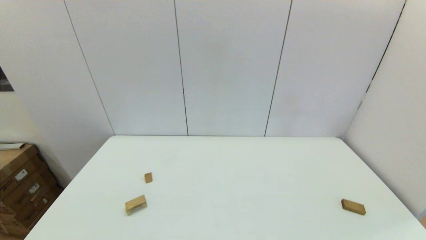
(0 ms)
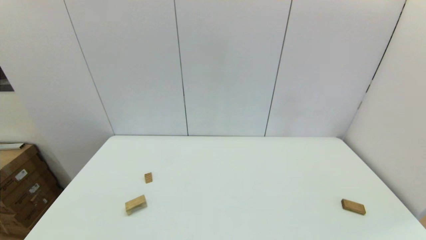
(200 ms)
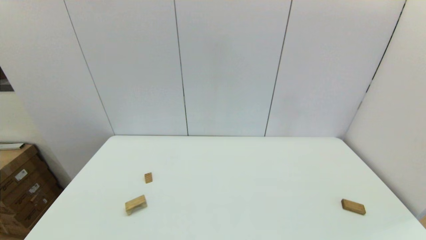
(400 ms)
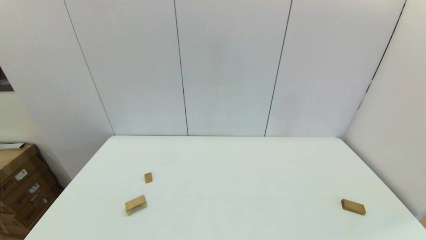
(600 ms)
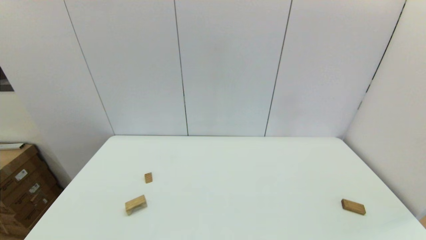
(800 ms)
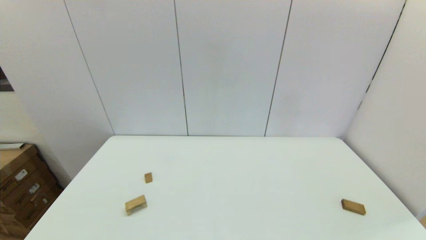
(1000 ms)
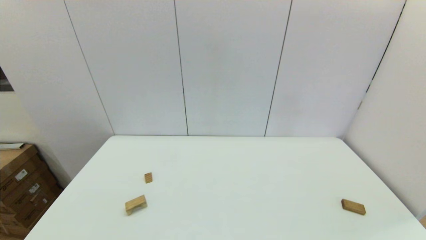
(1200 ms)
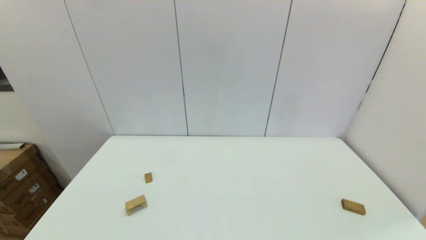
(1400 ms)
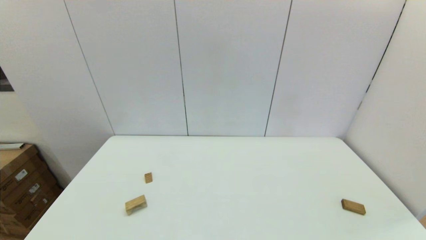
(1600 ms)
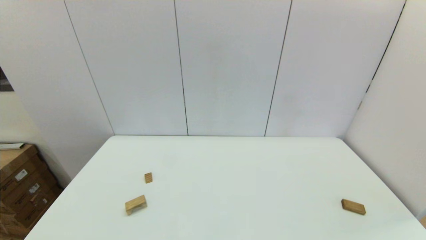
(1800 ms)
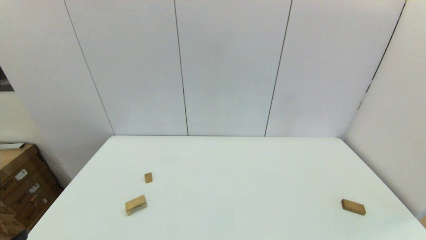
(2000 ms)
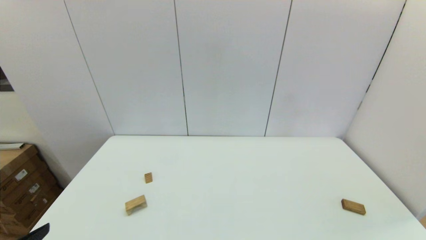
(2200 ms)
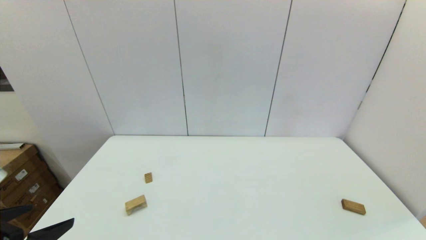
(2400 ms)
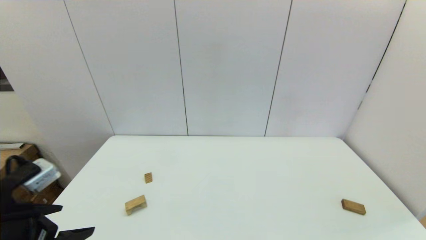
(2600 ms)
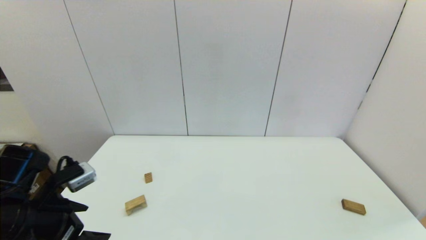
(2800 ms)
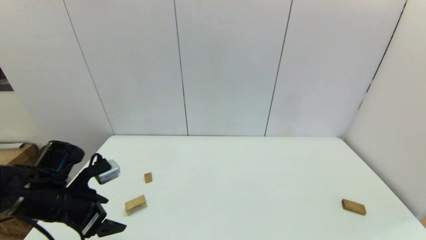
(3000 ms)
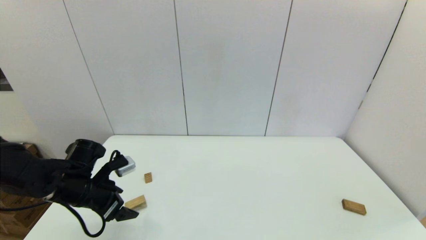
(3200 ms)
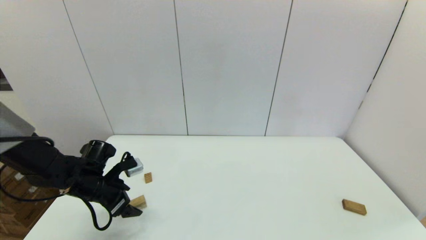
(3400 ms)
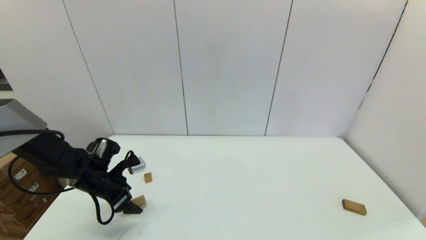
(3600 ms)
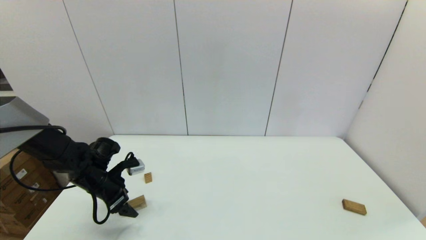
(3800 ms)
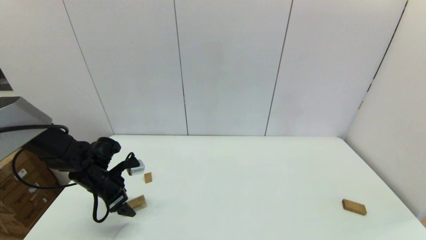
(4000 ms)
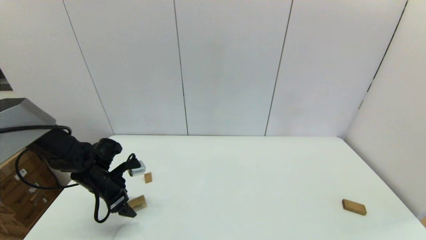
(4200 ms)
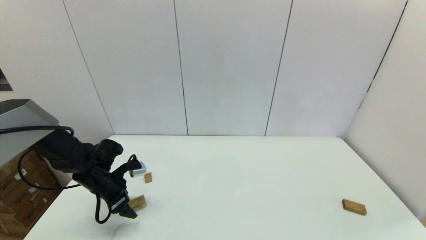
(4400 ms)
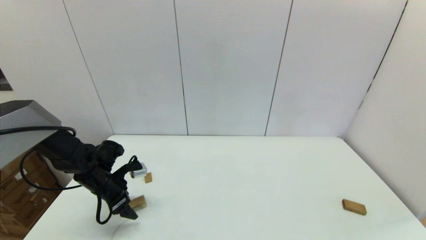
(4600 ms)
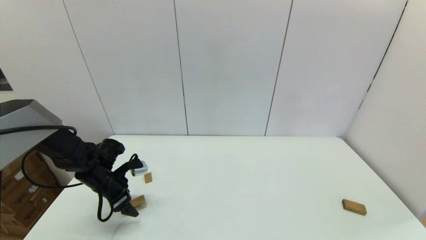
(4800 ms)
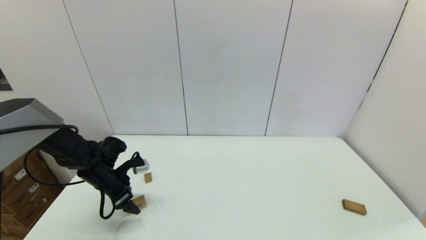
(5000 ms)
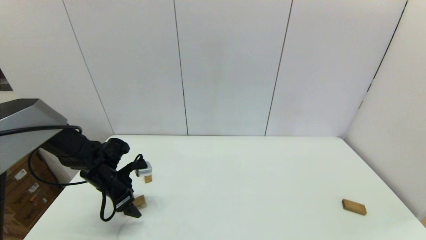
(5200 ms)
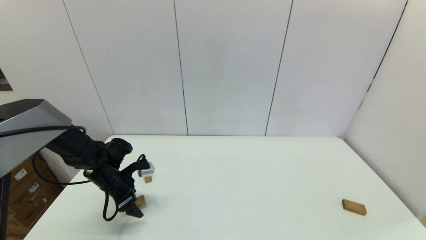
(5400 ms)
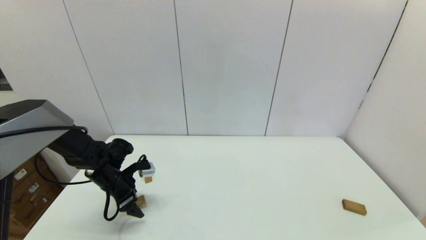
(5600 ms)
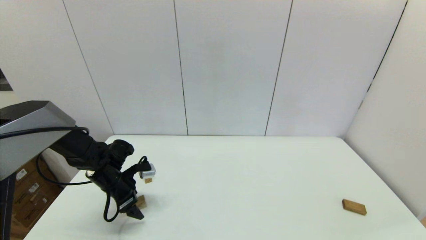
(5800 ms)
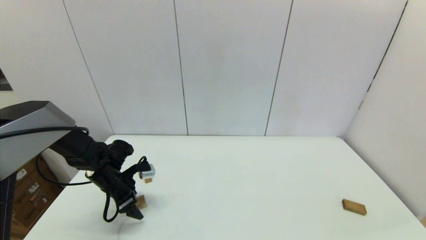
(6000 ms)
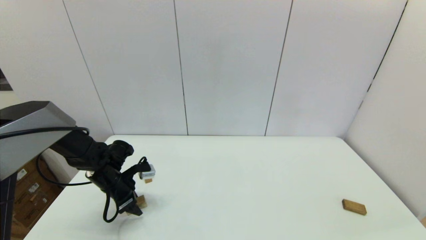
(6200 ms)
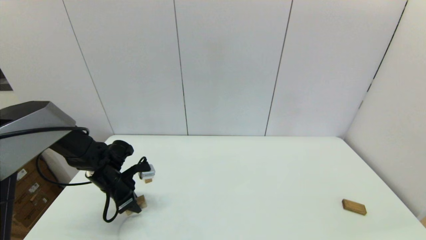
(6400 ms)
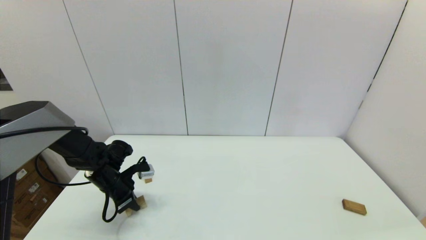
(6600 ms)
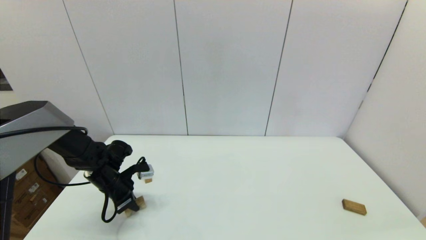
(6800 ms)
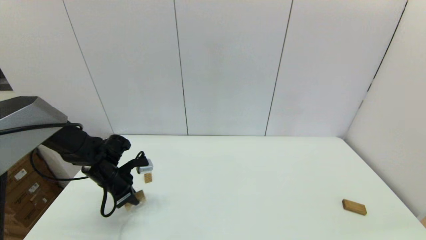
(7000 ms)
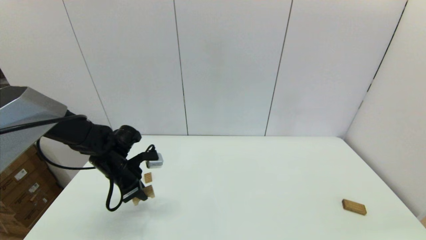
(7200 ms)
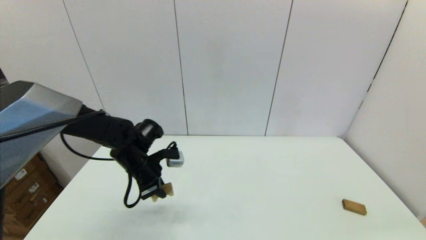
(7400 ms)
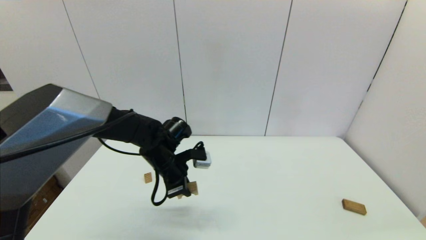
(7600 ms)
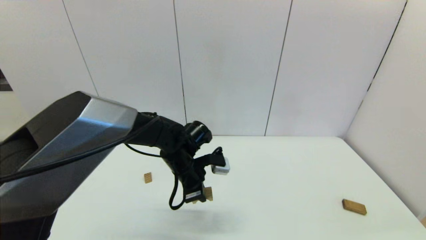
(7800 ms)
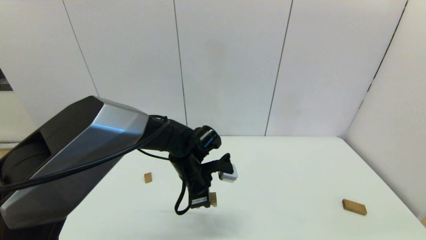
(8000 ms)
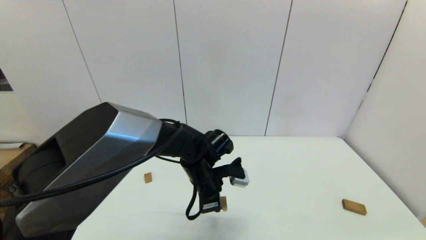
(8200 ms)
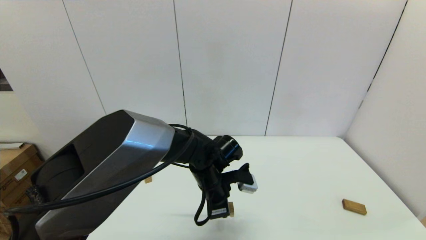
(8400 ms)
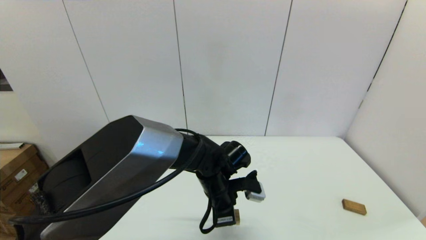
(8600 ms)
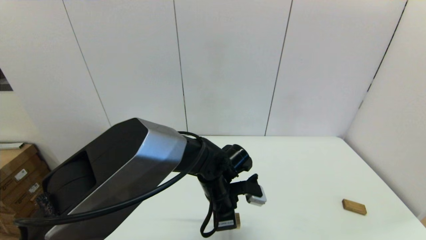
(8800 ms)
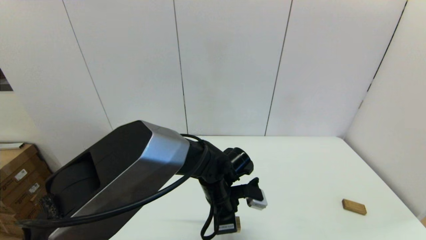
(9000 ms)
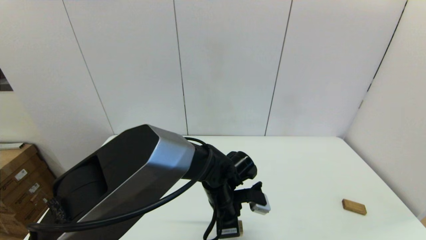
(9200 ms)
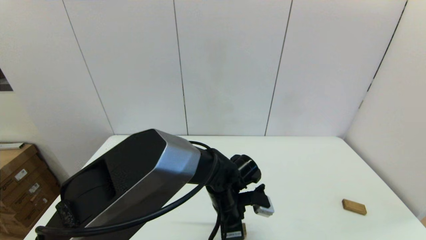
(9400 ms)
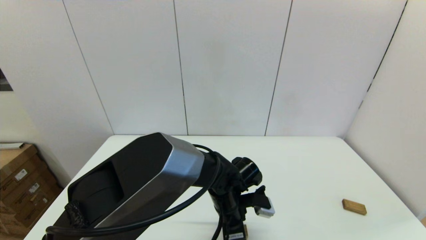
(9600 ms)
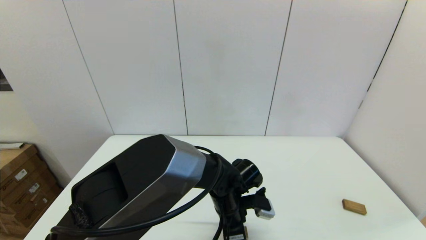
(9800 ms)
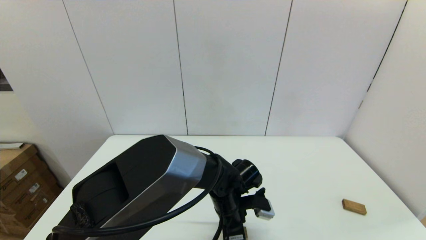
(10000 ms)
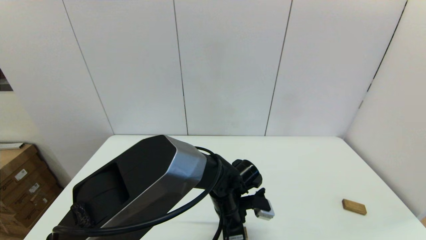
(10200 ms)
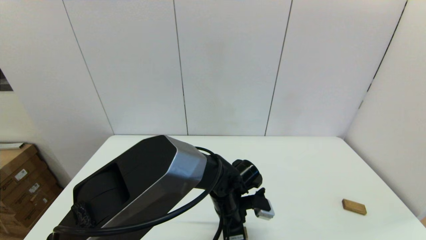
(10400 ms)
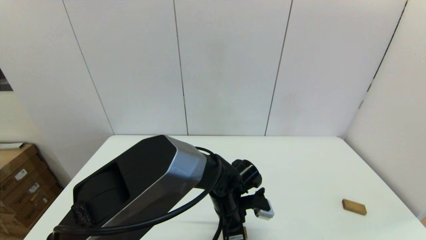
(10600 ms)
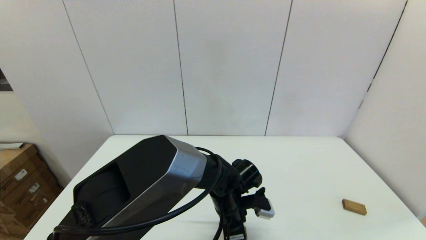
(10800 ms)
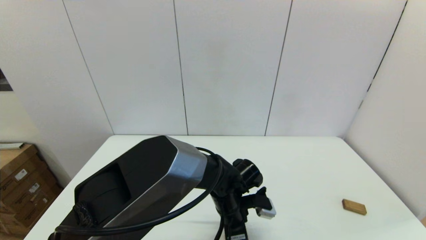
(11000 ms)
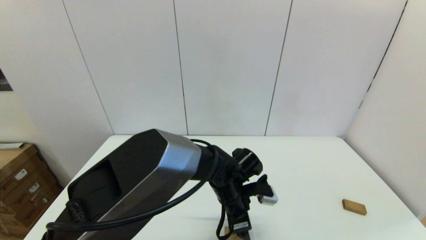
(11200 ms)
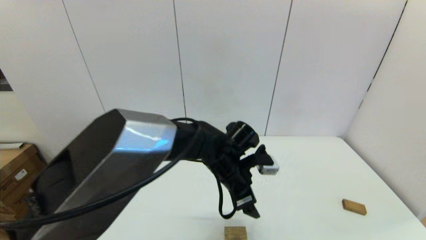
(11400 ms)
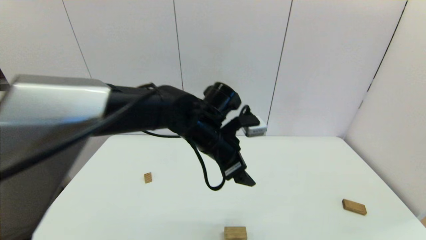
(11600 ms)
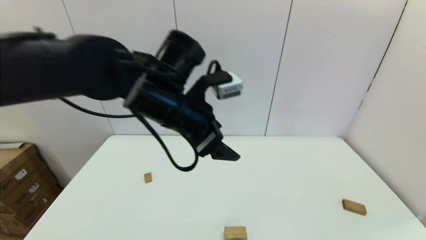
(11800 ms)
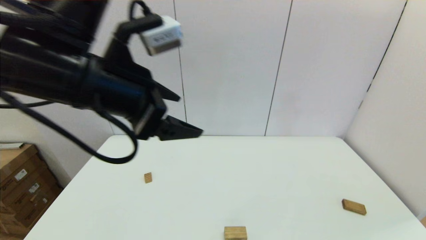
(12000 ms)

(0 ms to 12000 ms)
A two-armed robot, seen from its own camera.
Task of the whole recording: place the arched building blocks in the center of the table, set up the rectangular building blocks, and then set up the triangular building blocks.
Step, 2000 ms - 6400 ms: Grasp the arch-shaped block with the left gripper.
Step, 6800 ms - 10800 ms: Place the arch-shaped block in the center of view with the left gripper.
1600 ms - 3000 ms: The left gripper goes about 25 cm forward.
3000 ms - 4400 ms: The left gripper moves forward and downward, roughly 15 cm.
4400 ms - 6000 ms: There are only small adjustments of the grippers.
6000 ms - 7600 ms: The left gripper moves to the right and upward, roughly 20 cm, and closes up.
7600 ms - 9000 ms: The left gripper is displaced to the right and backward by roughly 15 cm.
9000 ms - 10400 ms: The grippers make only small movements.
10400 ms - 12000 ms: The left gripper heads upward and to the left, covering about 35 cm, and opens.

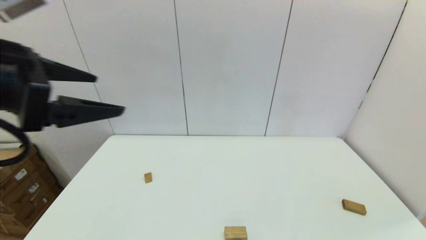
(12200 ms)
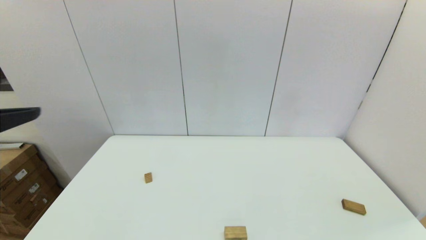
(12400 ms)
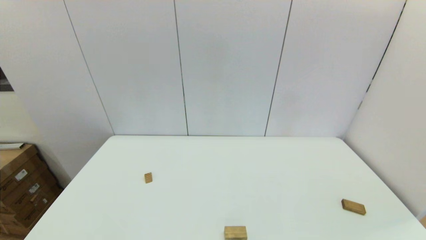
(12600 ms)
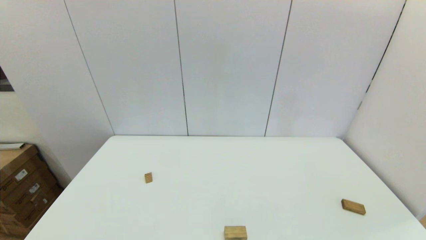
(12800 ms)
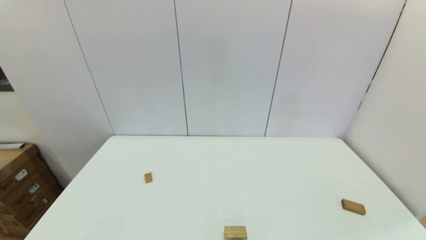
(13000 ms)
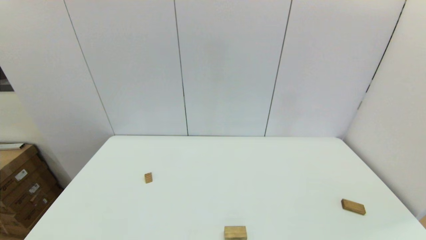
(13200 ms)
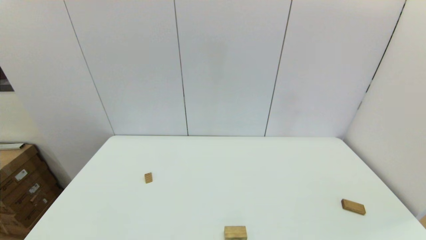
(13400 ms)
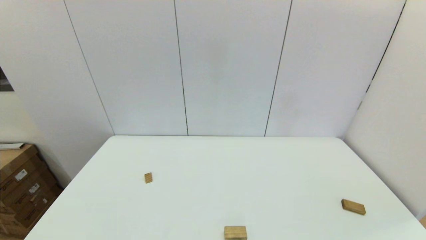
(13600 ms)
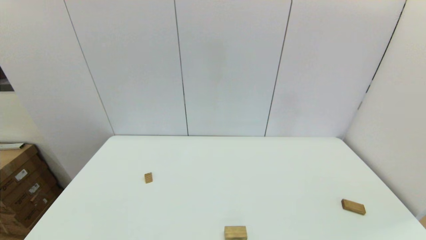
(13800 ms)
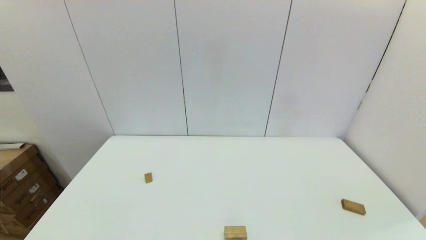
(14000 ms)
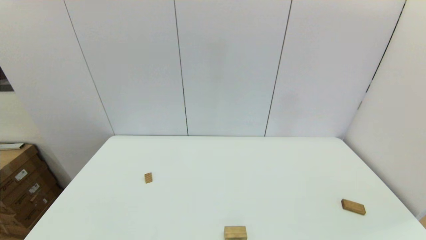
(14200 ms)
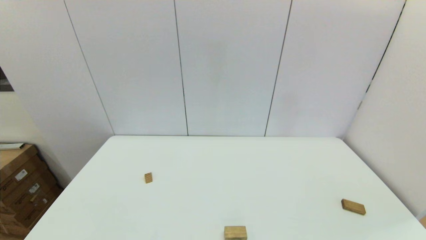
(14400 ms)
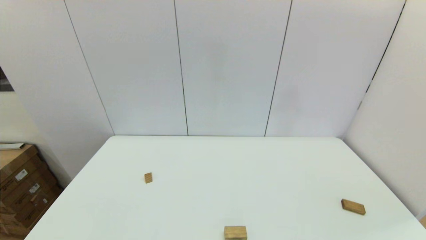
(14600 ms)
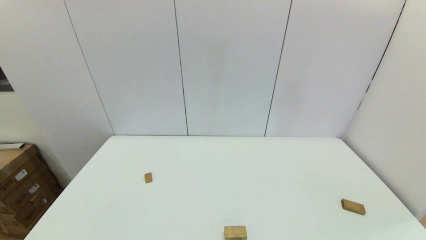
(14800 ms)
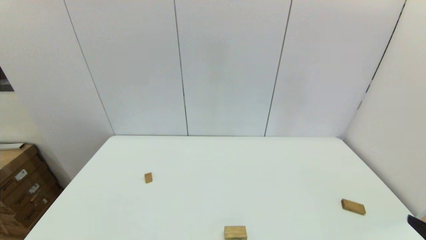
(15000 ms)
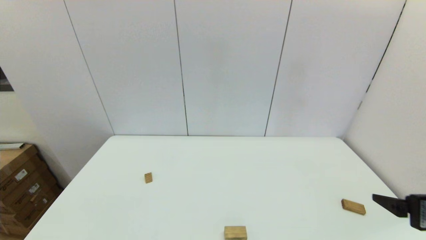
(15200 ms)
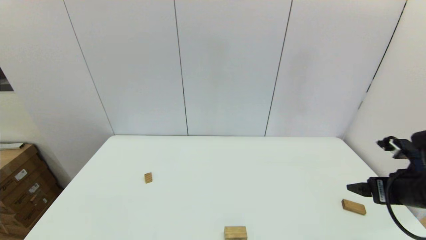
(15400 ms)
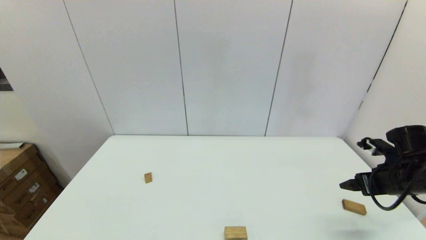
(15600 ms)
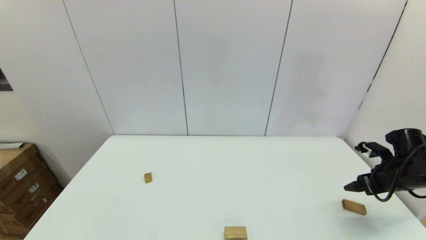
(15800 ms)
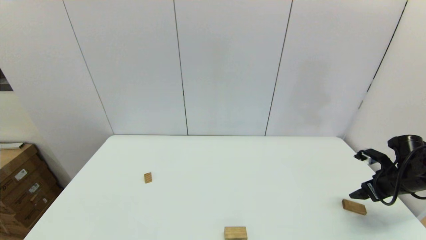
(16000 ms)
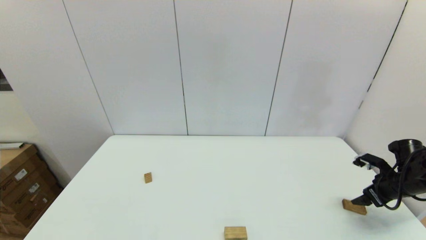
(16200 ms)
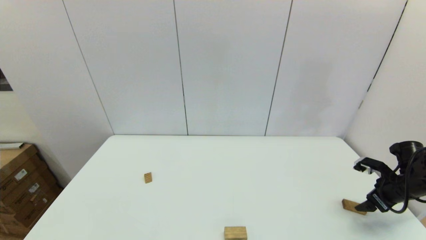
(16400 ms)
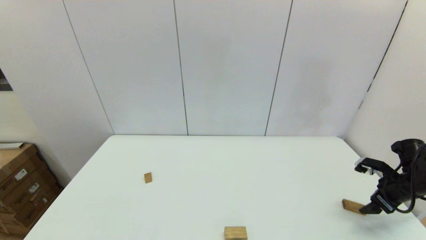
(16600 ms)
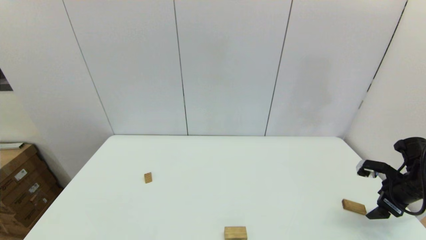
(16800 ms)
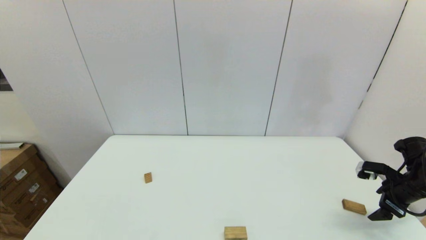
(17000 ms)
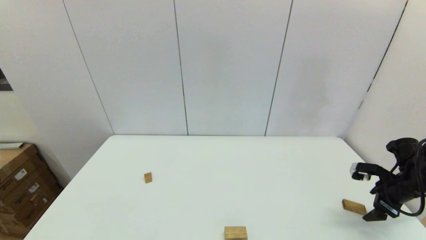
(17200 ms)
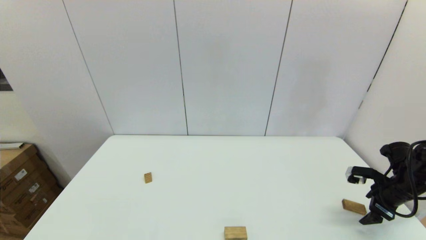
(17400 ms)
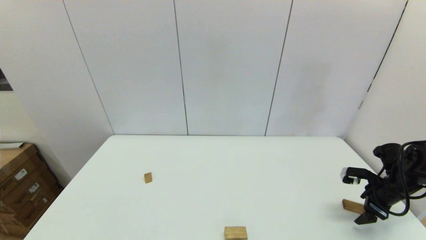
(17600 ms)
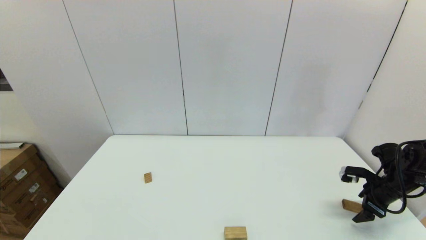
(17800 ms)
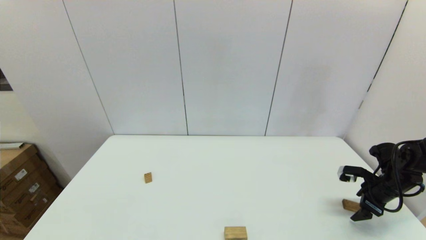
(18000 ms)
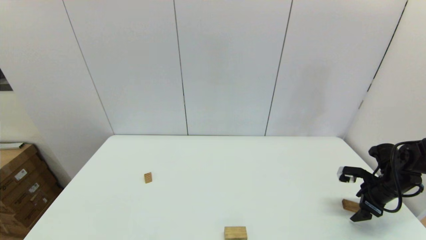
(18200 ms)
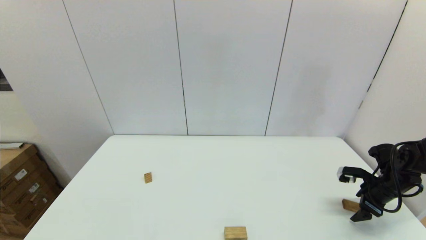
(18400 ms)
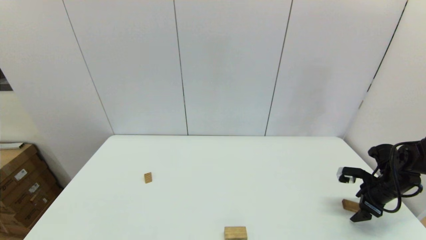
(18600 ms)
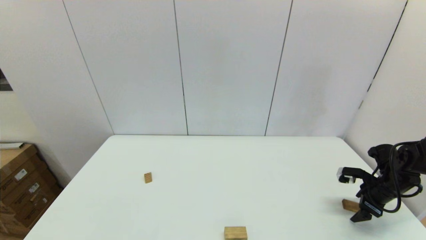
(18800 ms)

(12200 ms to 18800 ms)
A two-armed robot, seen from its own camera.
Task of the whole recording: place the arched building blocks in the center of the table, set up the rectangular building blocks, and then set up the triangular building blocks.
12200 ms - 13800 ms: The left gripper moves downward and backward, approximately 30 cm.
13800 ms - 15400 ms: The right gripper shifts roughly 25 cm forward.
15400 ms - 17200 ms: The right gripper shifts roughly 15 cm to the right, downward and forward.
17200 ms - 18800 ms: The right gripper shifts by roughly 5 cm.
